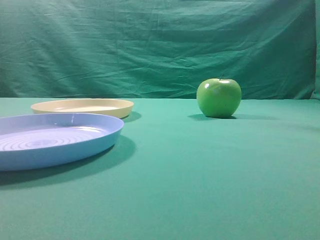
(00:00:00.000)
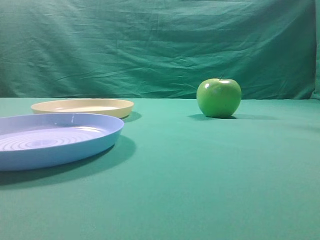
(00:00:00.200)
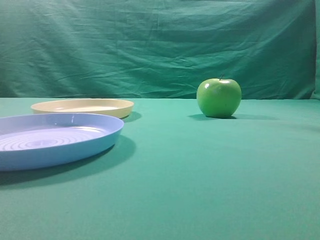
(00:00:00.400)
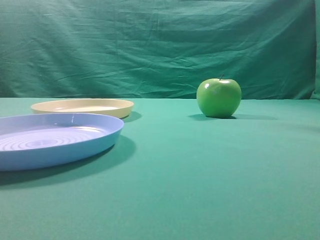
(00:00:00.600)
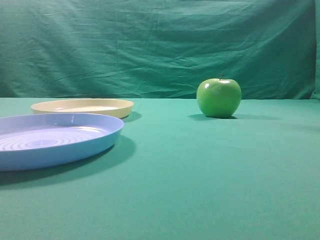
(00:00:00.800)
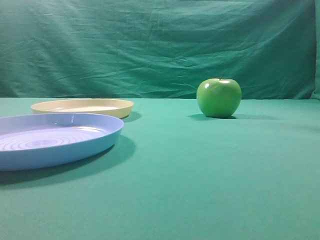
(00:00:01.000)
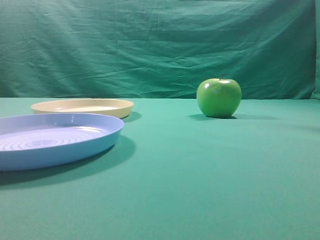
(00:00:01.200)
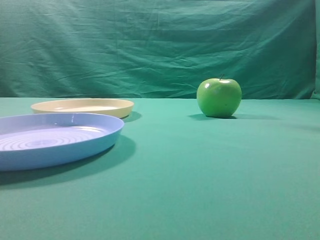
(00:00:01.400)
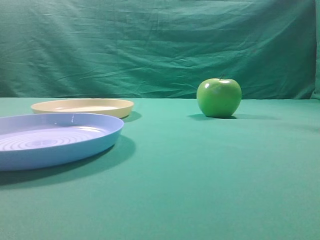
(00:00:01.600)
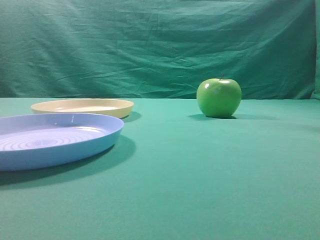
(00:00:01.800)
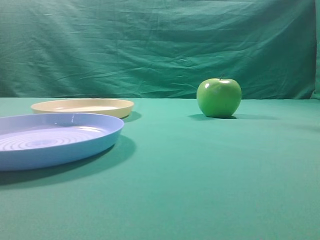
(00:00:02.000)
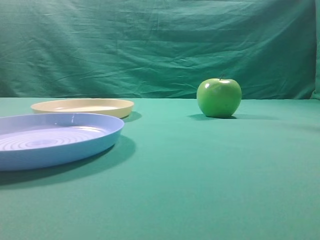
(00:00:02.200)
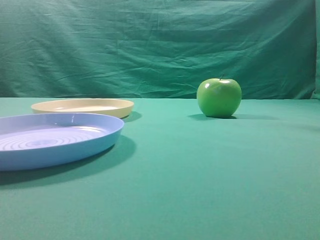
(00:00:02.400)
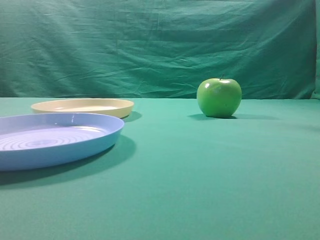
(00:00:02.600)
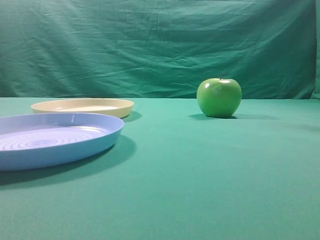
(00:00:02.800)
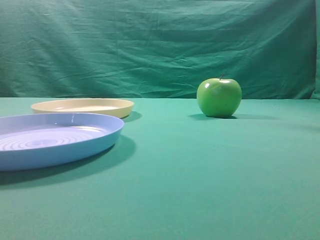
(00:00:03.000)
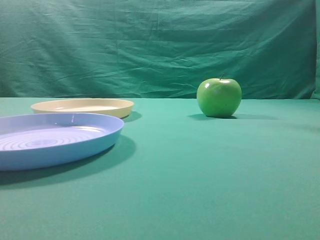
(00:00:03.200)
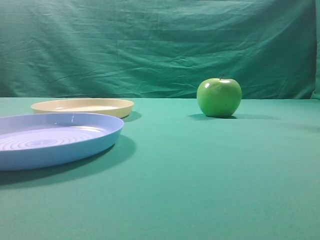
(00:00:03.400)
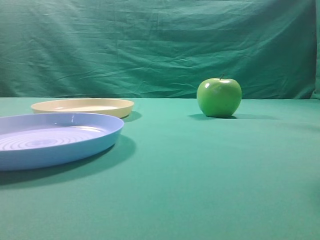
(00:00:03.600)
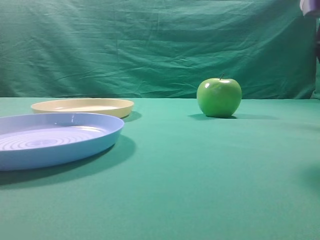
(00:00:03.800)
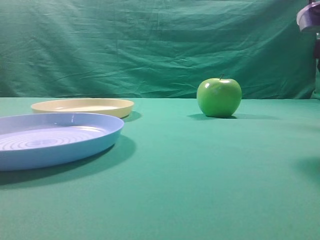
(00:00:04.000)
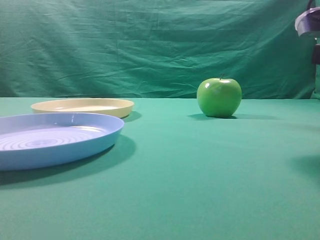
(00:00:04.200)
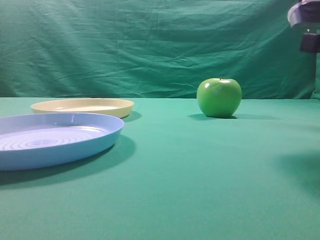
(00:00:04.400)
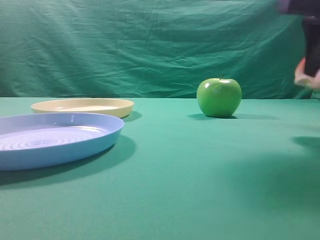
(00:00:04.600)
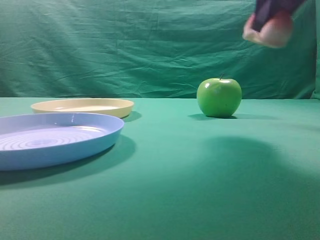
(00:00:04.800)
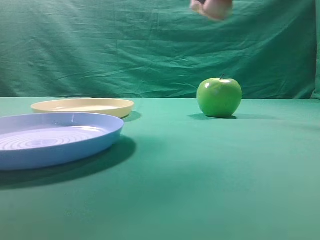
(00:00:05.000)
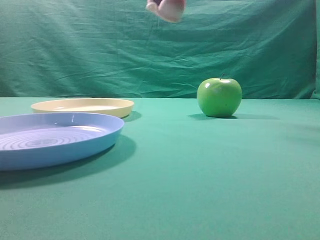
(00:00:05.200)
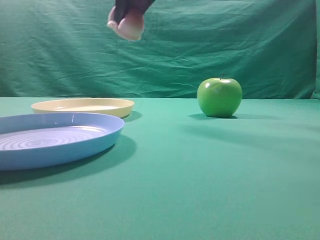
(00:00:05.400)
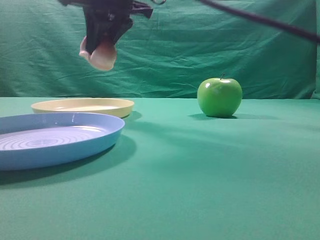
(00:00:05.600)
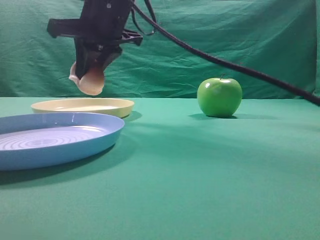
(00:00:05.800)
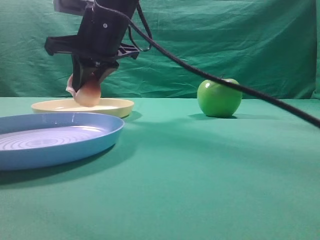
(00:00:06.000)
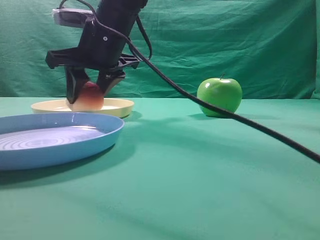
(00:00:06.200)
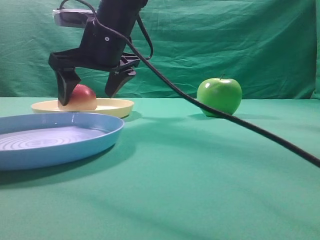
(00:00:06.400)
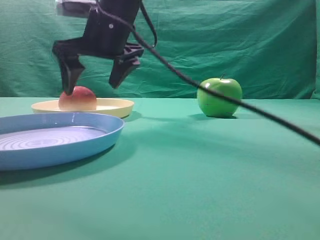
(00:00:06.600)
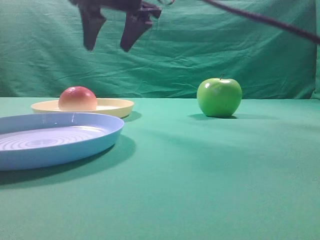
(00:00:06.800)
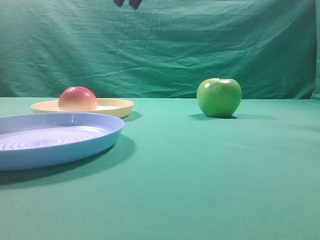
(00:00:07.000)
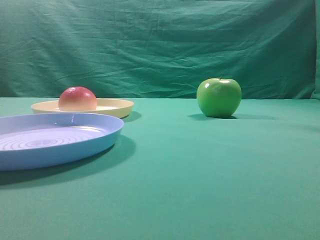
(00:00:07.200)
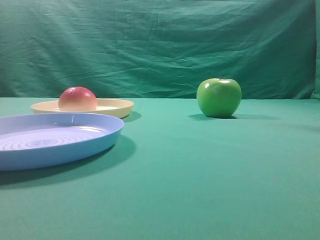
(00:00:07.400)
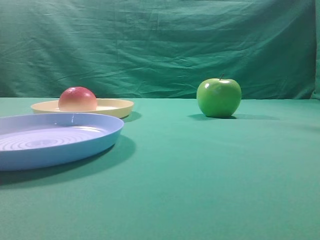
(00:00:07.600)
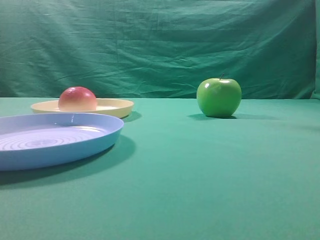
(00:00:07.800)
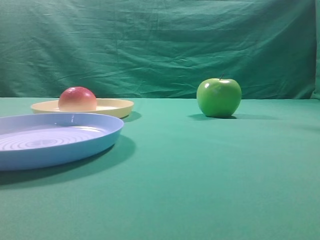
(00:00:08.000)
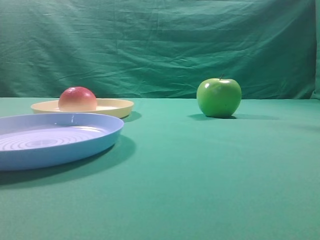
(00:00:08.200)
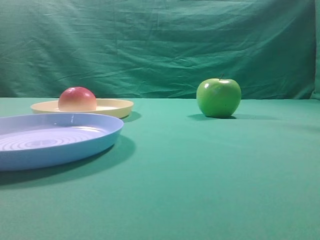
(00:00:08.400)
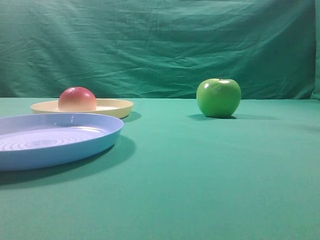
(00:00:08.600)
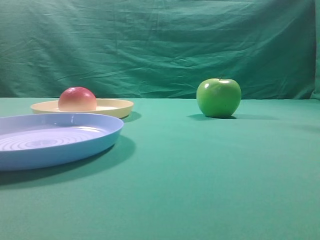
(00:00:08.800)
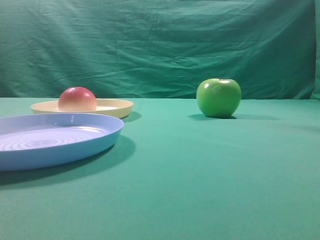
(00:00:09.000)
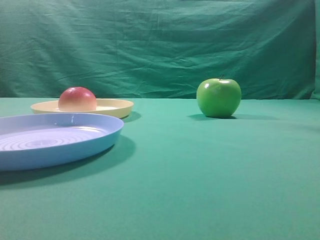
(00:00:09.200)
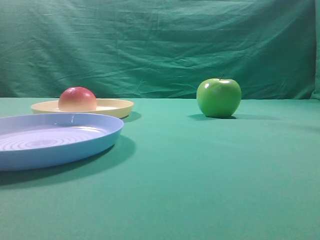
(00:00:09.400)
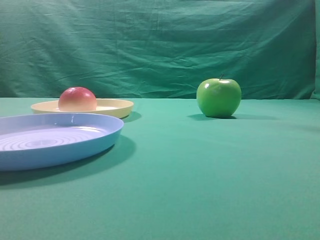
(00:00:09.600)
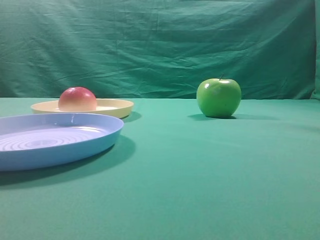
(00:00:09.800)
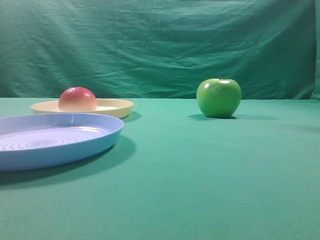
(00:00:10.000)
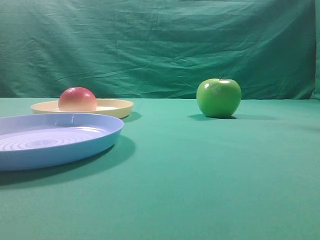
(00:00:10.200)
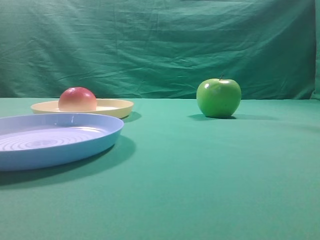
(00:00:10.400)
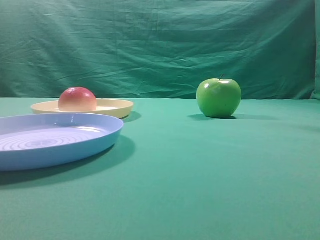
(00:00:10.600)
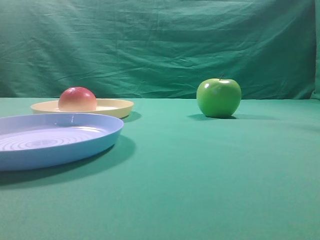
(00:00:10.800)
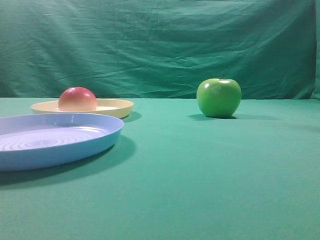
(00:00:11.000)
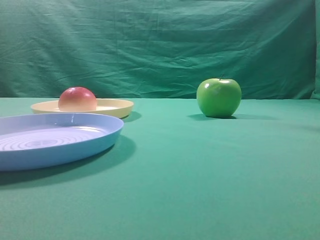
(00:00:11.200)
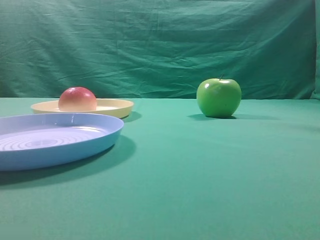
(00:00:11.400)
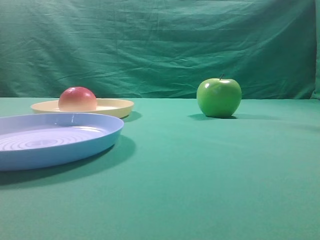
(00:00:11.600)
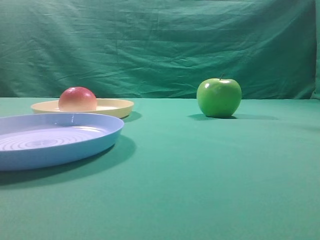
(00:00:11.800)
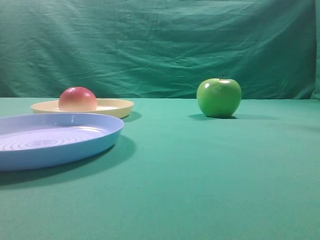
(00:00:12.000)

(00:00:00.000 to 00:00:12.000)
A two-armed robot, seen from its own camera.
Step, 00:00:04.800 - 00:00:06.600: Place the picked object on the yellow plate.
